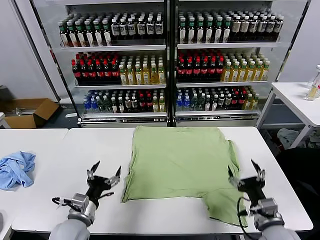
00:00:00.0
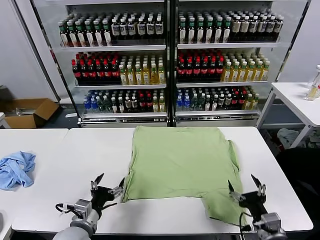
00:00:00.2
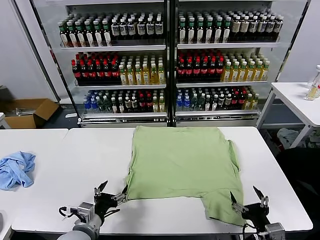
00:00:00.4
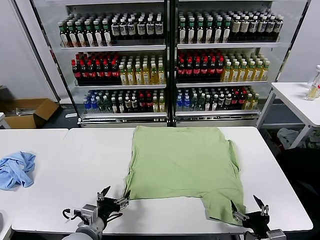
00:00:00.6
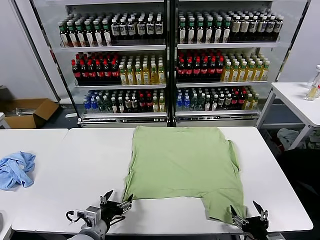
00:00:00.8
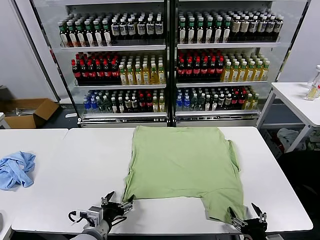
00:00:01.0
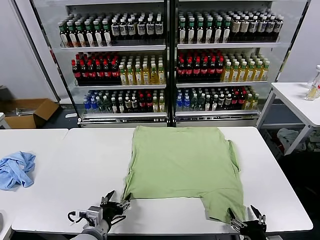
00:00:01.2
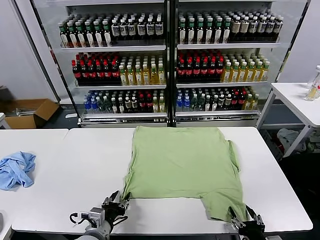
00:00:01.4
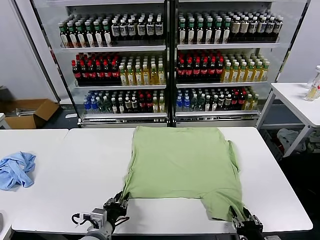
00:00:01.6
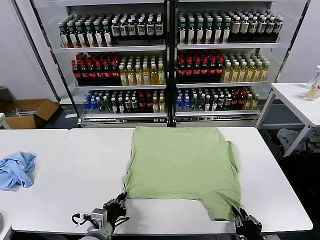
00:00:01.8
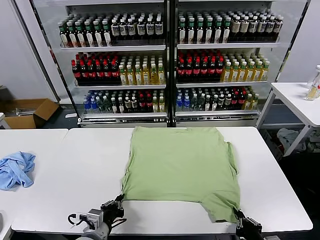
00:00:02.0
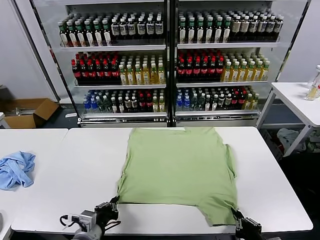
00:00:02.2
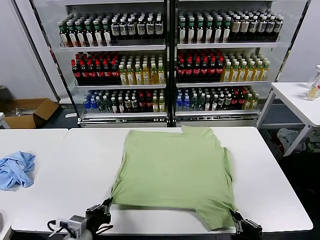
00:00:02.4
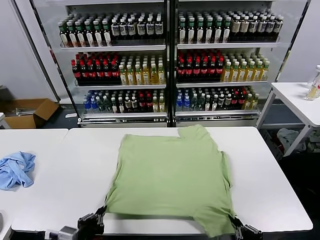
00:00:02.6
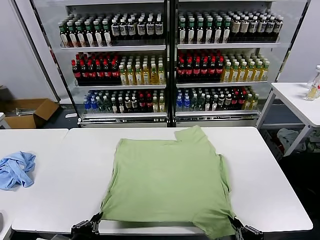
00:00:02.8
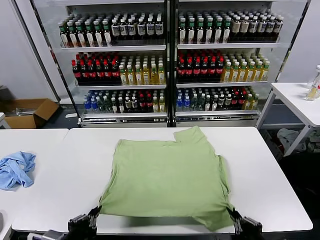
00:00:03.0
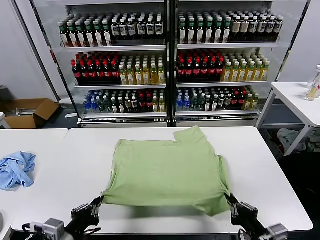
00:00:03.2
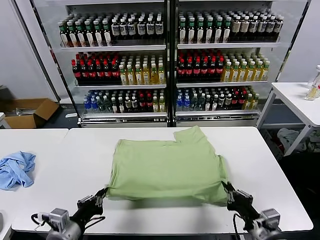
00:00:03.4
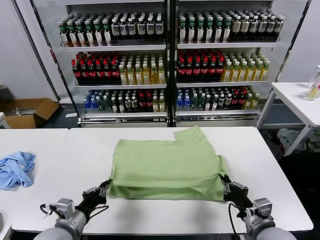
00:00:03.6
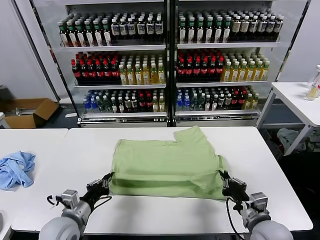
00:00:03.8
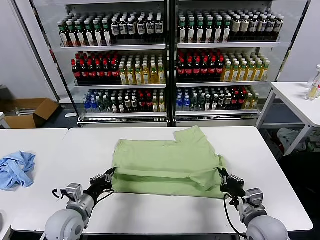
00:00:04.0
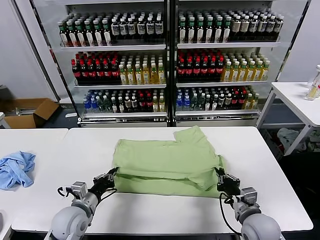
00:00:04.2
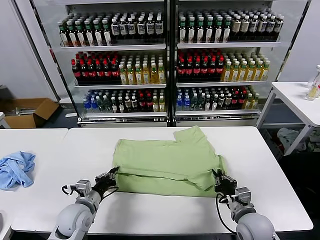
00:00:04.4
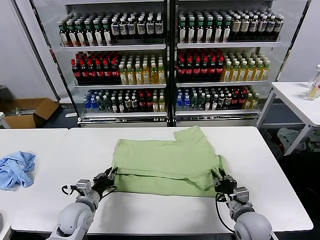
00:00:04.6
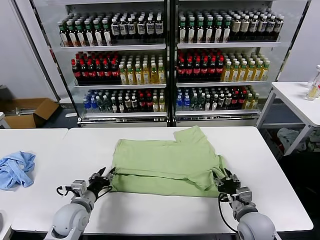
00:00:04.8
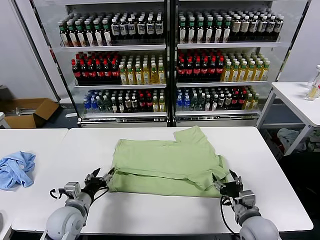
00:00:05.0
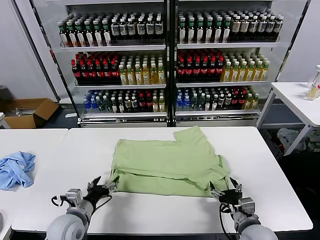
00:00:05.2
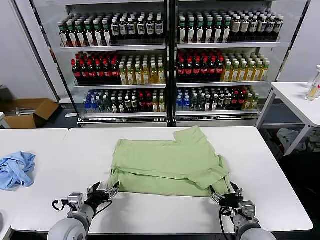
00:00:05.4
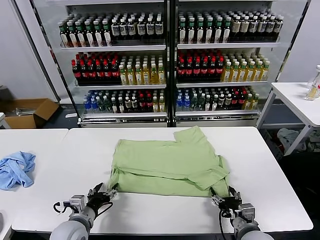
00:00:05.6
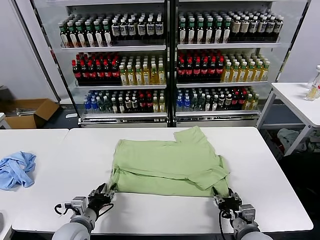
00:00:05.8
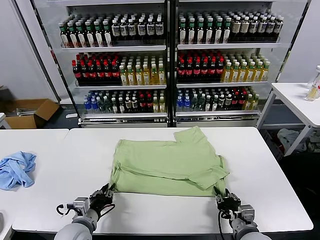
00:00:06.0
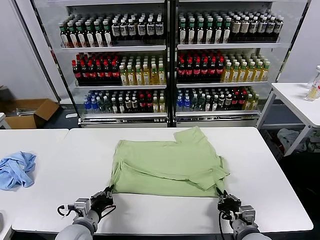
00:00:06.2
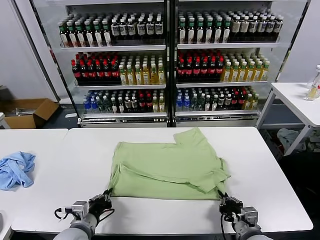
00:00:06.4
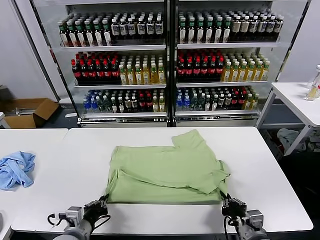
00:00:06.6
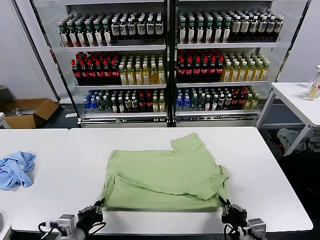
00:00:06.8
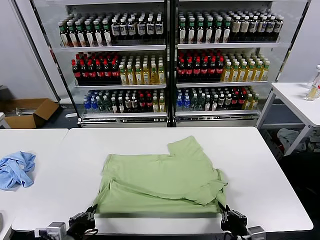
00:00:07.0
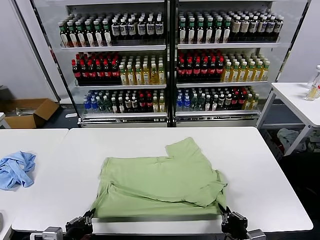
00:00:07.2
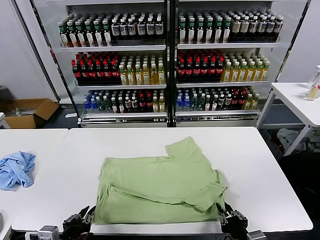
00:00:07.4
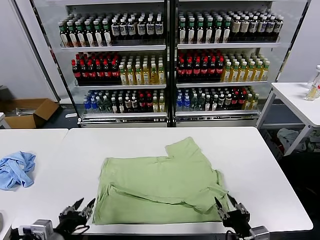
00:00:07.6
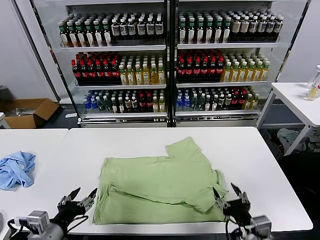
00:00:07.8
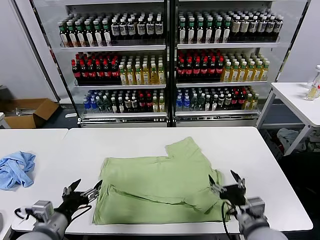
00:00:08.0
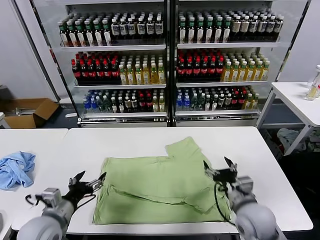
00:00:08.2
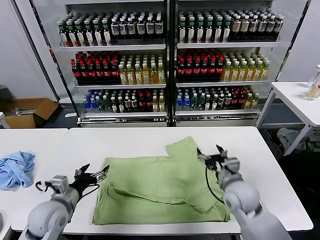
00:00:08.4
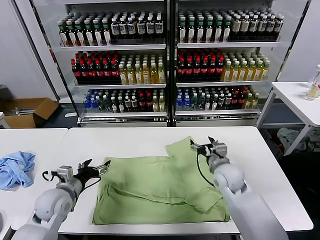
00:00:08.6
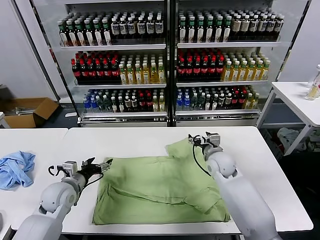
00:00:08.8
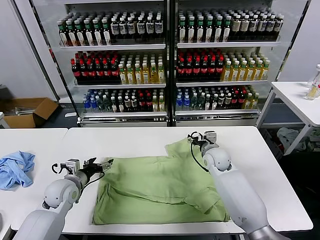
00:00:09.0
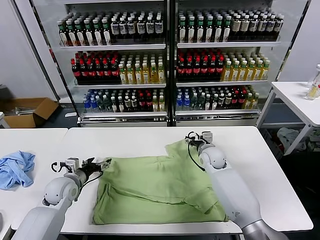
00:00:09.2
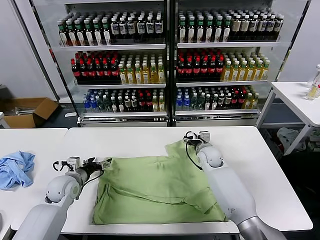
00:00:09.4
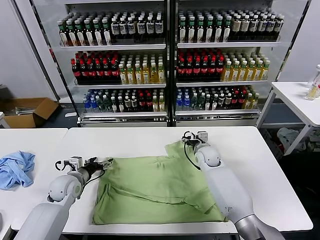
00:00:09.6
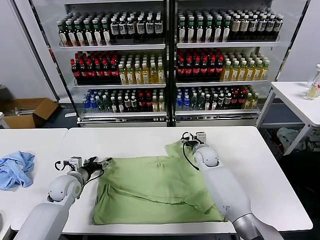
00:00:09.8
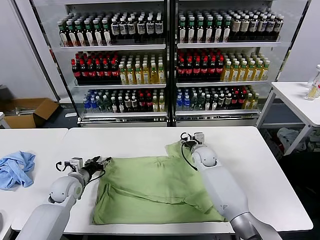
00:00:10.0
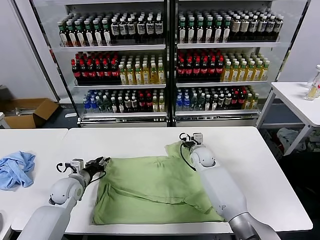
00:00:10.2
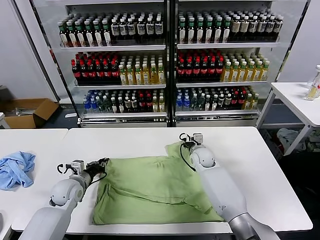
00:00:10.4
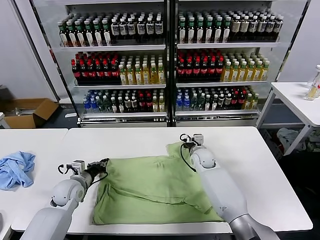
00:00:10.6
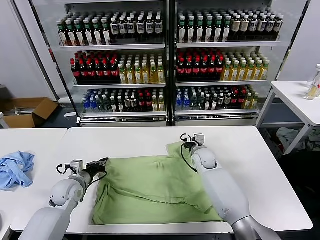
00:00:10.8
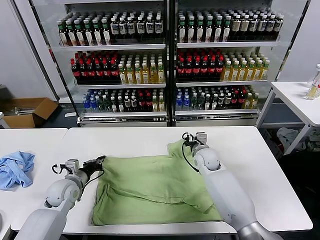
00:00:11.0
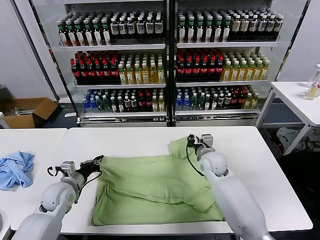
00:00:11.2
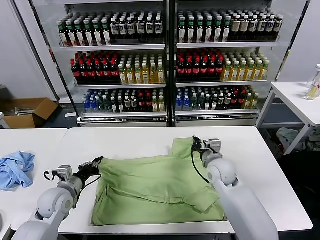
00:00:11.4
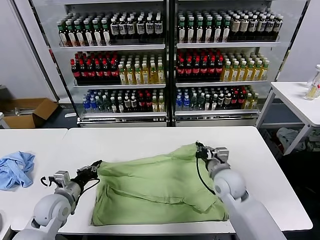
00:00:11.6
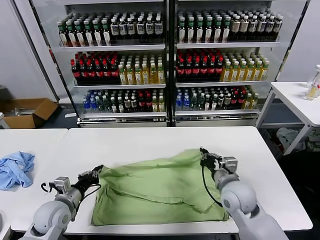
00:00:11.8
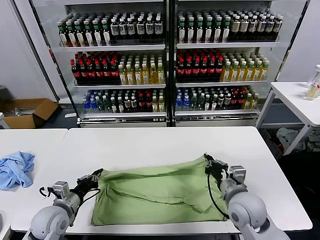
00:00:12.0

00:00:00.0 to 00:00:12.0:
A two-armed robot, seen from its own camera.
Task of the whole recording: fold and organize the clothes.
Step, 00:00:00.0 to 00:00:02.2: use both grippers simultaneously to clamp the lower edge of the clothing fabric.
Step, 00:00:02.4 to 00:00:04.8: use both grippers to drag the lower edge of the fabric forward and fold it over the upper edge.
Step, 00:00:05.0 to 00:00:07.6: Drag the clothes downward with both gripper.
Step, 00:00:07.8 to 00:00:10.6: use both grippers simultaneously to clamp the upper edge of the clothing fabric.
00:00:01.6 to 00:00:03.0: The left gripper goes some 15 cm upward, backward and to the left. Meanwhile the right gripper heads upward, covering about 10 cm.
00:00:03.0 to 00:00:04.4: The grippers both shift forward and downward by roughly 20 cm.
00:00:04.4 to 00:00:06.0: The two grippers go about 5 cm backward. The left gripper opens, then closes again; the right gripper opens, then closes again.
00:00:06.0 to 00:00:07.6: The right gripper heads upward and backward, covering roughly 10 cm, and opens its fingers. Meanwhile the left gripper travels backward and upward by about 15 cm.
00:00:07.6 to 00:00:09.0: The right gripper shifts about 35 cm forward, while the left gripper travels forward by roughly 25 cm, and opens.
00:00:09.0 to 00:00:10.4: The right gripper moves approximately 5 cm, and closes up. The left gripper closes.
00:00:10.4 to 00:00:12.0: The right gripper heads backward, covering about 25 cm, while the left gripper shifts some 10 cm backward.

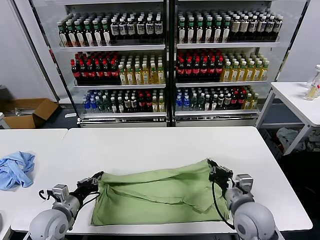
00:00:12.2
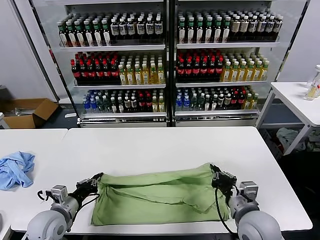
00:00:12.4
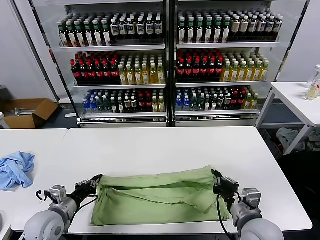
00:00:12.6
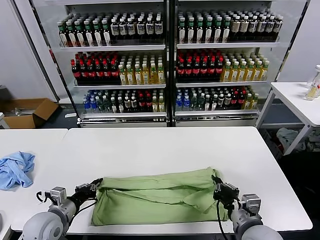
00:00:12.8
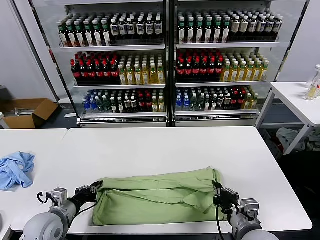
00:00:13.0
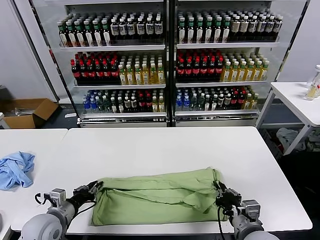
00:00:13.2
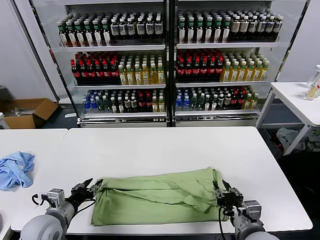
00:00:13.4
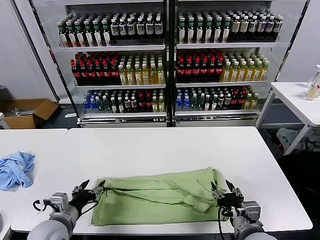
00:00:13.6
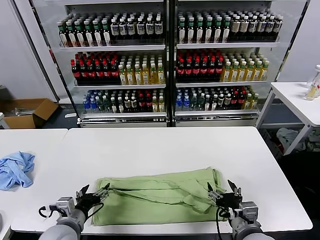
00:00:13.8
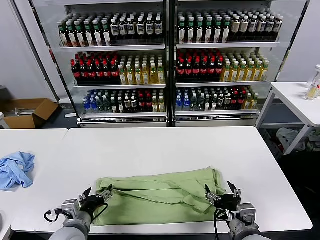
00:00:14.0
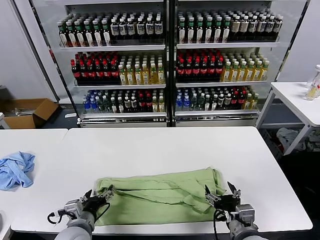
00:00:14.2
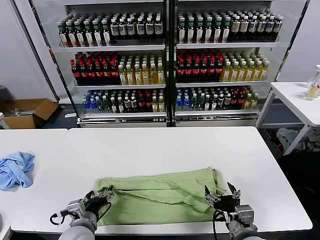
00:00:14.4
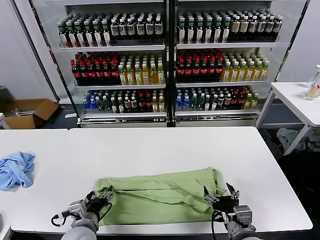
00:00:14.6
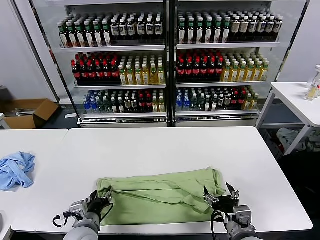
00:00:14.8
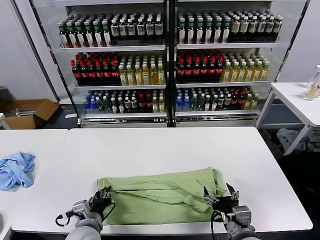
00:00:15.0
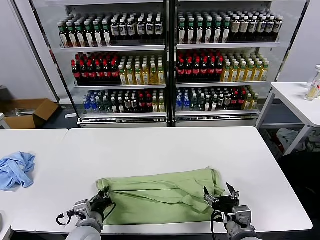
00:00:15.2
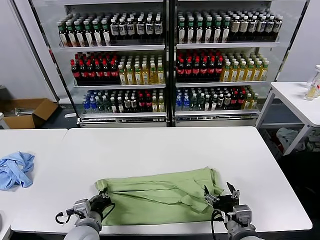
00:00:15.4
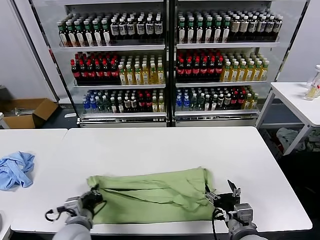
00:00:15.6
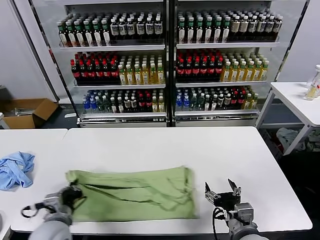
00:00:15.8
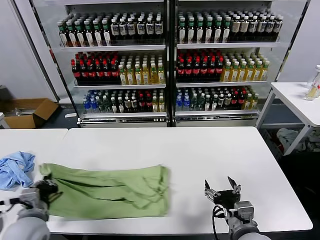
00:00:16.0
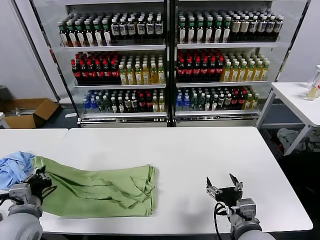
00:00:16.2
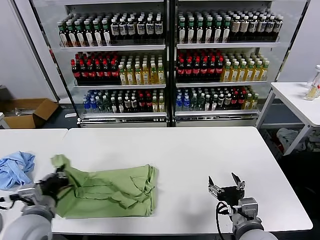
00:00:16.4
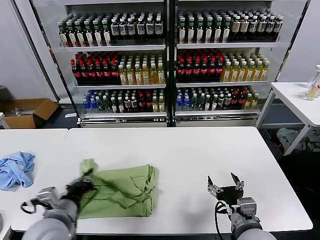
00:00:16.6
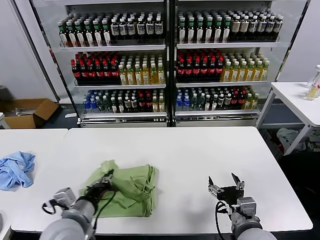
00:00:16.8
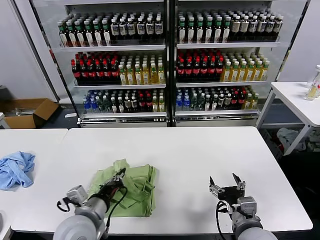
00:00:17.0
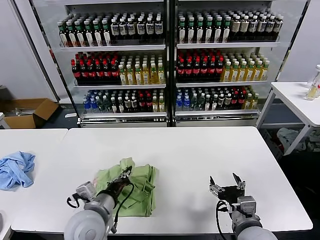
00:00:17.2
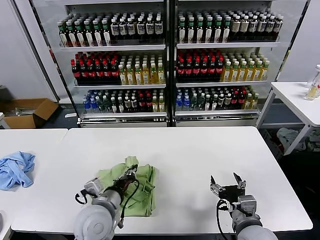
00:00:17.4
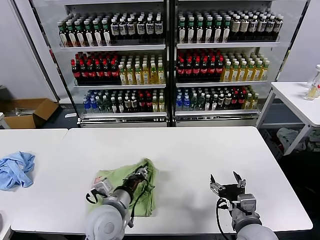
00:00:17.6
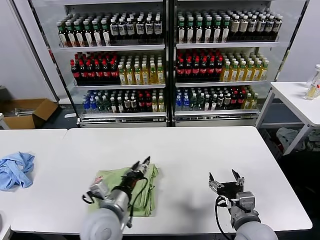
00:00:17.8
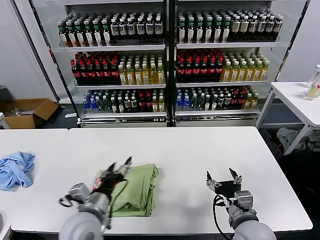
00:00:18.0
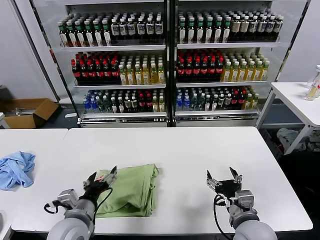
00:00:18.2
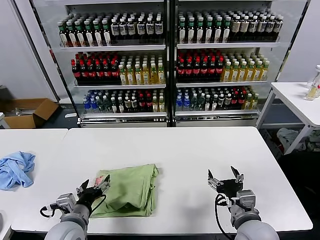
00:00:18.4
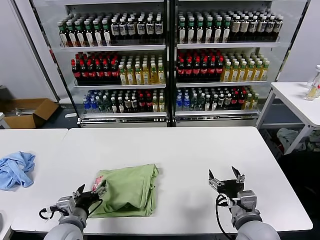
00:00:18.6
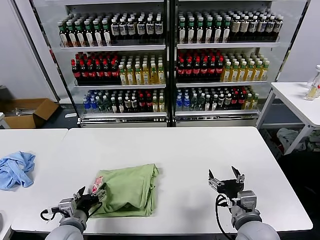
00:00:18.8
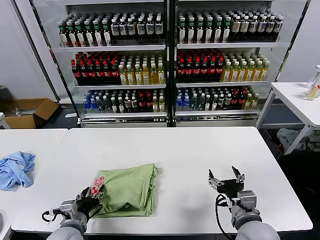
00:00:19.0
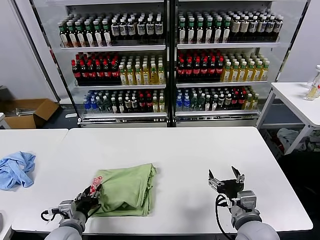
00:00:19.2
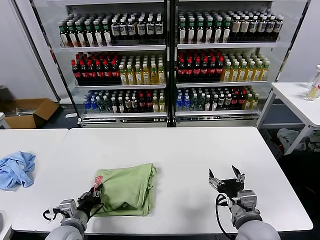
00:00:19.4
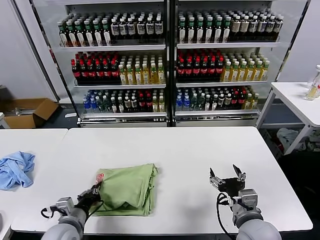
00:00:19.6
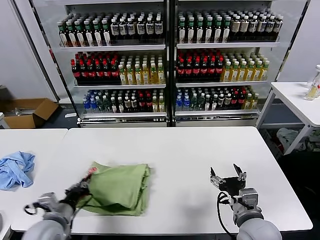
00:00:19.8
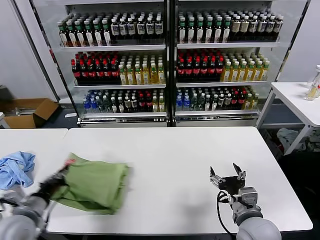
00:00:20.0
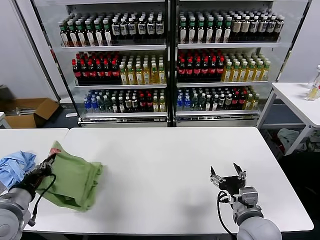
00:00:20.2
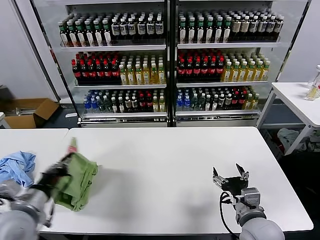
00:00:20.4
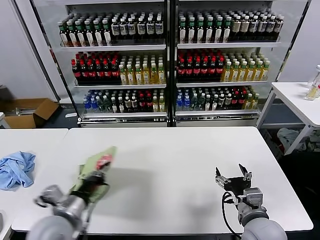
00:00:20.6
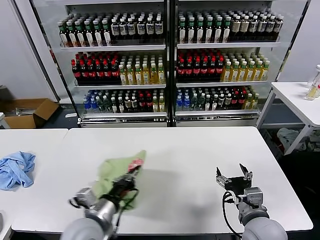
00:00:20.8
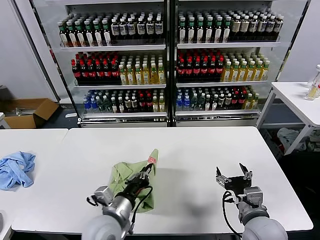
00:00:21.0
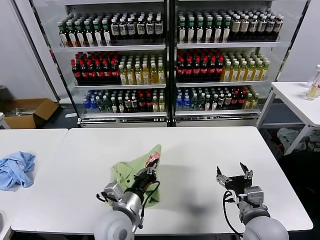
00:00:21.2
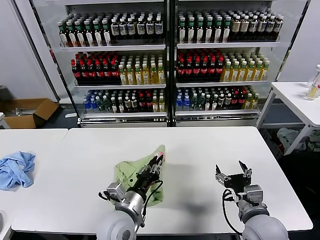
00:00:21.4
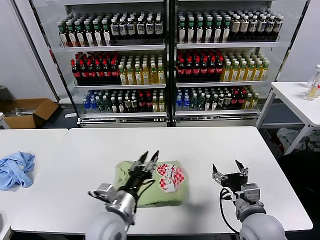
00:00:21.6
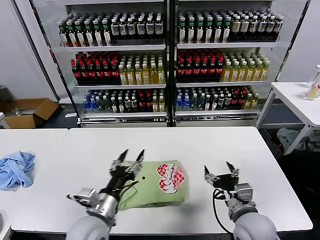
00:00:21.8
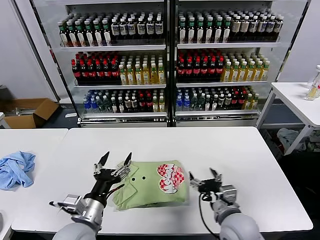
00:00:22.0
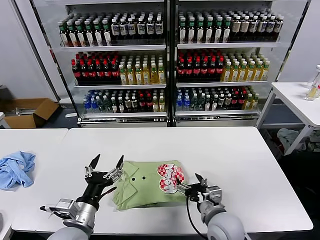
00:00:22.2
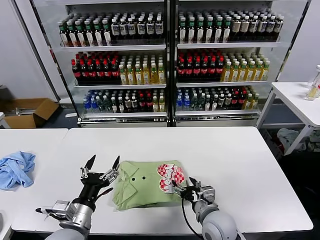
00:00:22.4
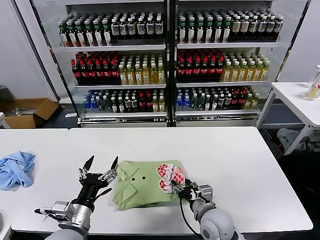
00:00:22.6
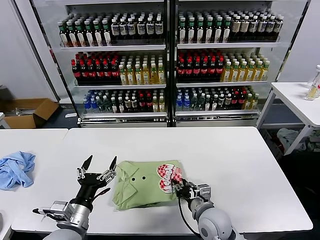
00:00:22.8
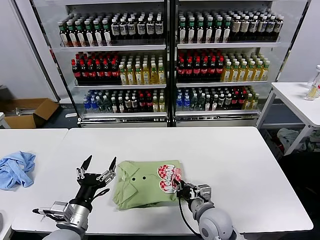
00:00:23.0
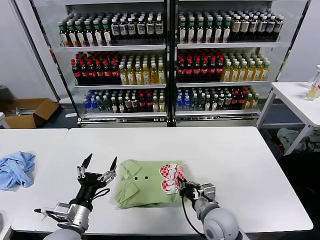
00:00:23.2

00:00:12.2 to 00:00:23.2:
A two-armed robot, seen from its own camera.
Task of the whole recording: fold and organize the clothes.
Step, 00:00:13.6 to 00:00:15.2: use the left gripper to clamp the left edge of the fabric.
Step, 00:00:15.4 to 00:00:17.6: use the left gripper to drag the left edge of the fabric to the left and folds it over the right edge.
Step, 00:00:18.0 to 00:00:21.6: Flip the folded clothes over with left gripper.
00:00:12.2 to 00:00:13.8: The right gripper is displaced backward by roughly 5 cm, and opens. The left gripper travels to the right by some 5 cm, and opens its fingers.
00:00:13.8 to 00:00:15.4: The left gripper heads to the right, covering some 5 cm, and closes its fingers.
00:00:15.4 to 00:00:17.0: The left gripper travels upward by some 10 cm, and moves roughly 15 cm to the left and comes back.
00:00:17.0 to 00:00:18.4: The left gripper shifts roughly 10 cm downward and to the left, and opens its fingers.
00:00:18.4 to 00:00:20.0: The left gripper shifts about 10 cm to the left and upward, and closes.
00:00:20.0 to 00:00:21.6: The left gripper heads to the right, covering approximately 25 cm, and opens its fingers.
00:00:21.6 to 00:00:23.2: The left gripper heads to the left, covering about 10 cm, and opens its fingers; the right gripper is displaced to the left and downward by roughly 10 cm, and closes up.
